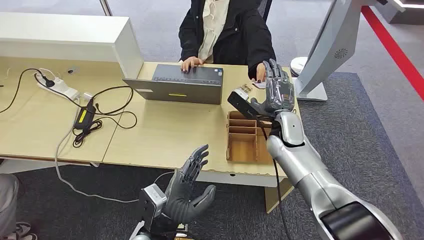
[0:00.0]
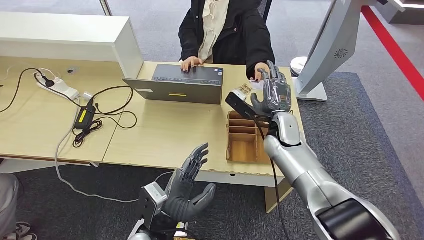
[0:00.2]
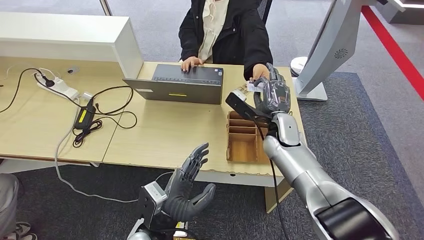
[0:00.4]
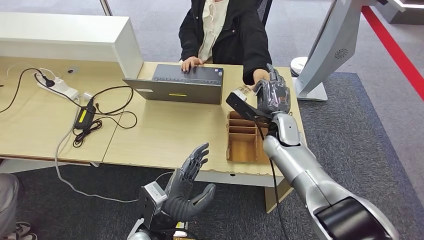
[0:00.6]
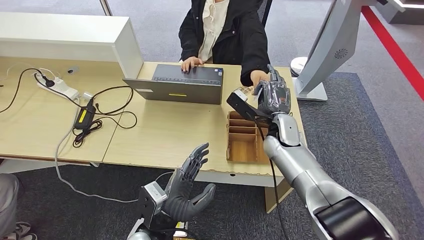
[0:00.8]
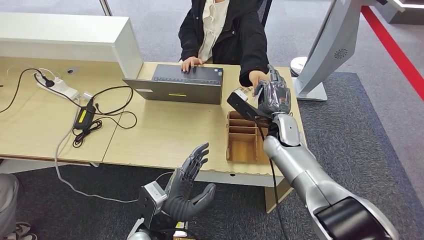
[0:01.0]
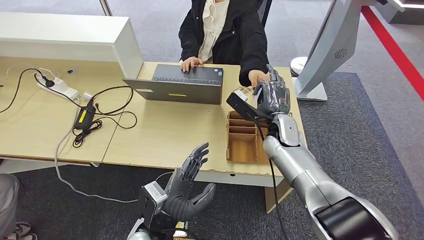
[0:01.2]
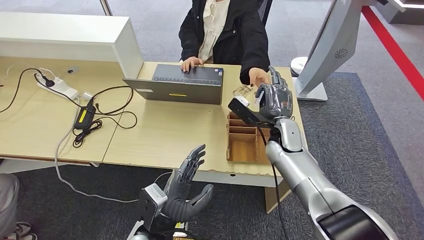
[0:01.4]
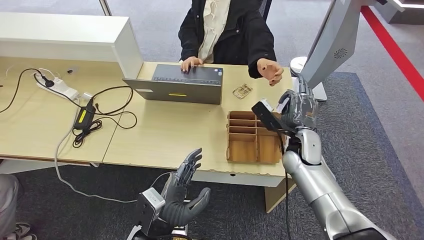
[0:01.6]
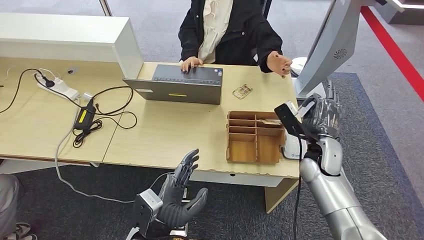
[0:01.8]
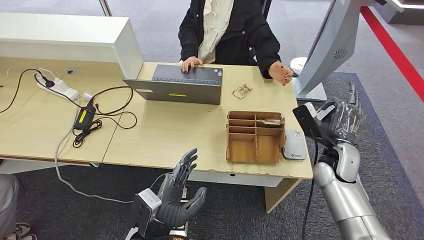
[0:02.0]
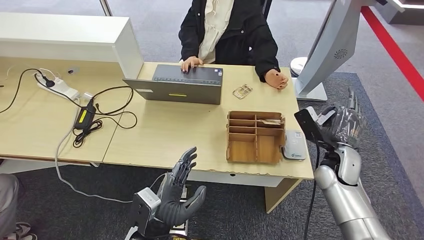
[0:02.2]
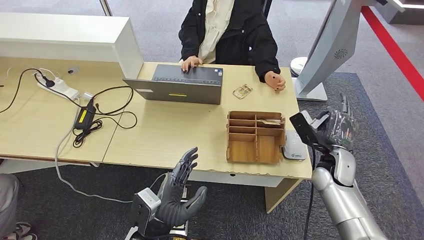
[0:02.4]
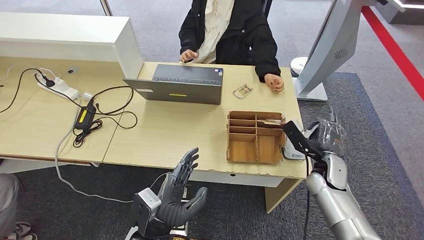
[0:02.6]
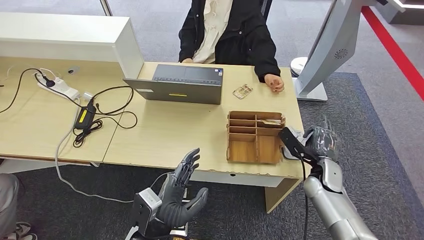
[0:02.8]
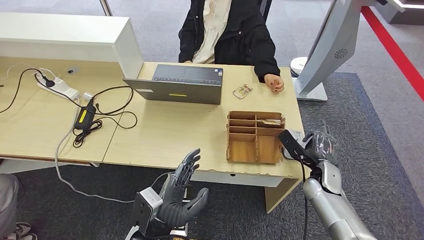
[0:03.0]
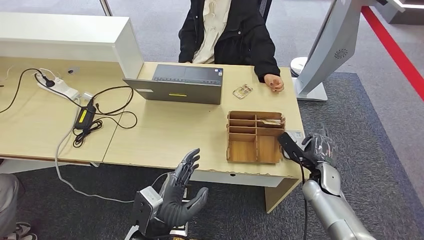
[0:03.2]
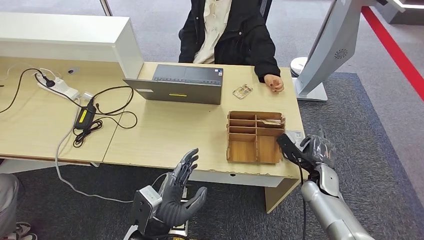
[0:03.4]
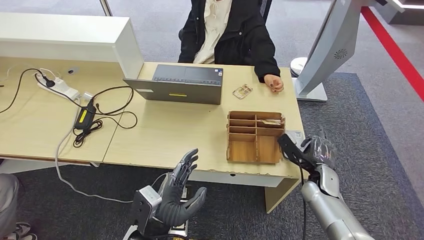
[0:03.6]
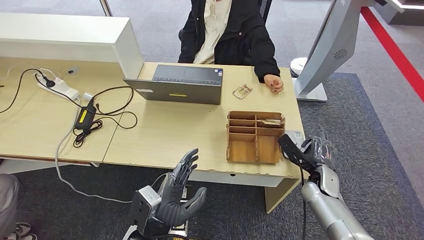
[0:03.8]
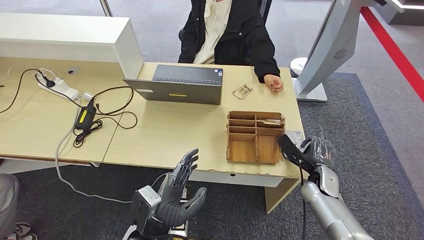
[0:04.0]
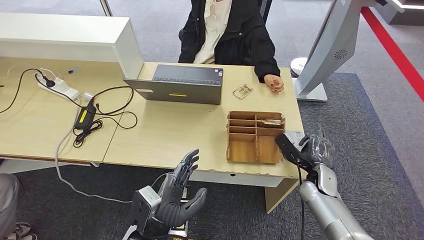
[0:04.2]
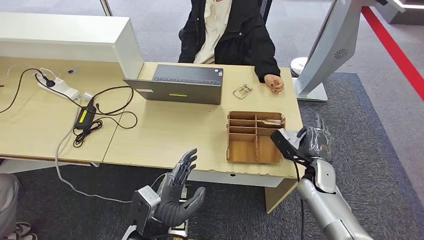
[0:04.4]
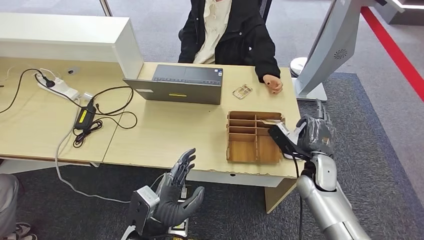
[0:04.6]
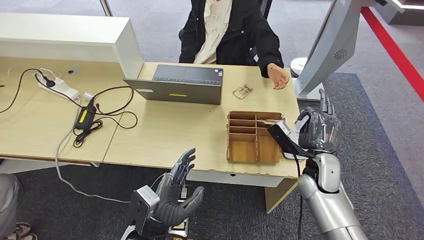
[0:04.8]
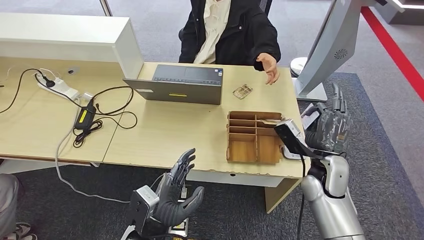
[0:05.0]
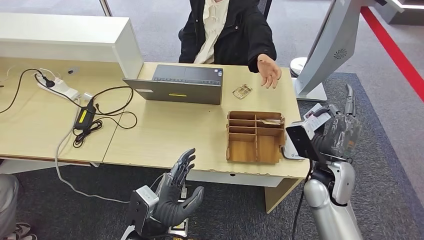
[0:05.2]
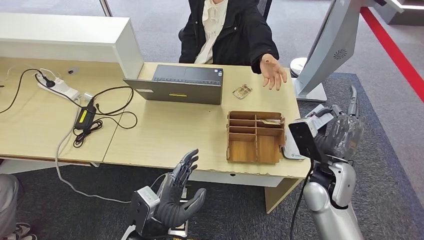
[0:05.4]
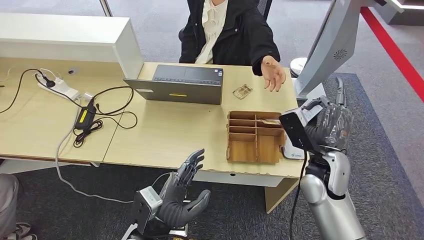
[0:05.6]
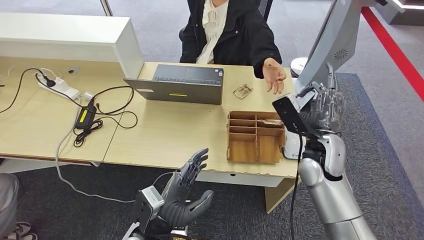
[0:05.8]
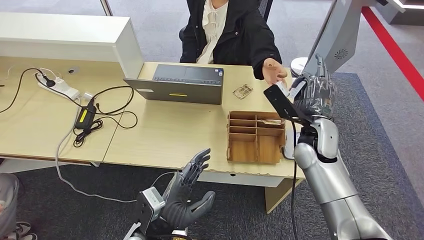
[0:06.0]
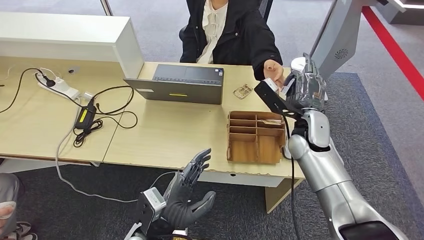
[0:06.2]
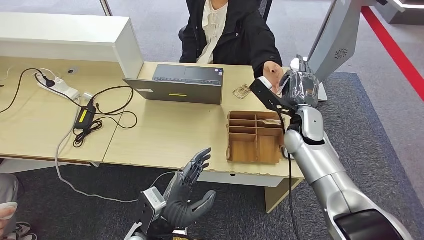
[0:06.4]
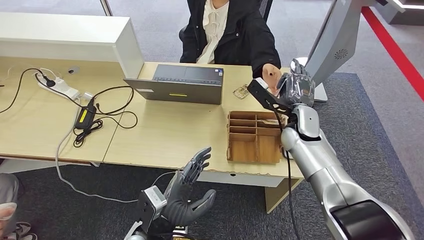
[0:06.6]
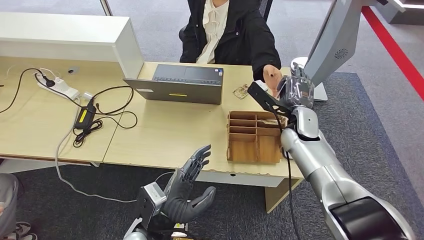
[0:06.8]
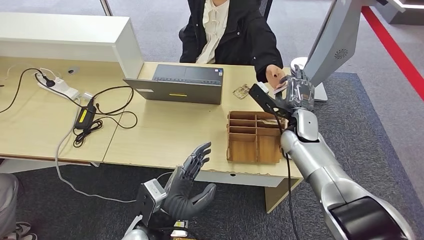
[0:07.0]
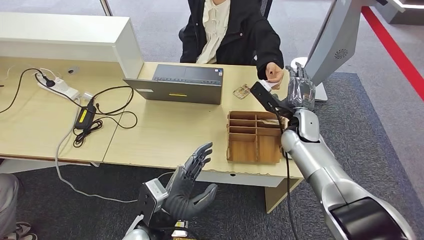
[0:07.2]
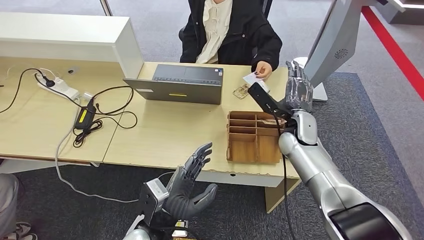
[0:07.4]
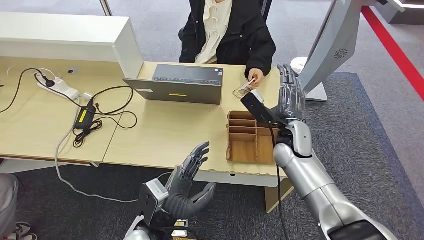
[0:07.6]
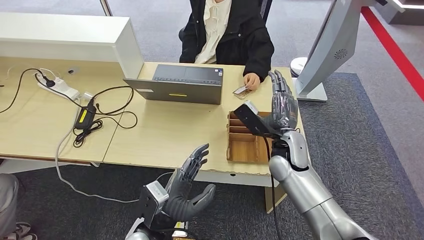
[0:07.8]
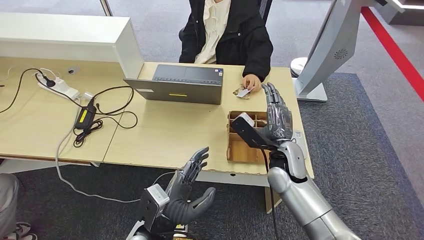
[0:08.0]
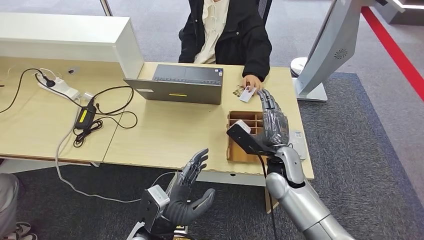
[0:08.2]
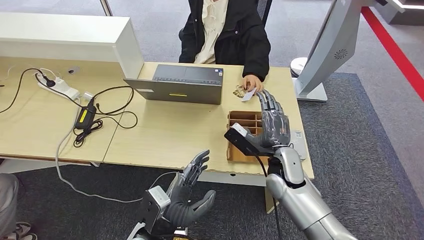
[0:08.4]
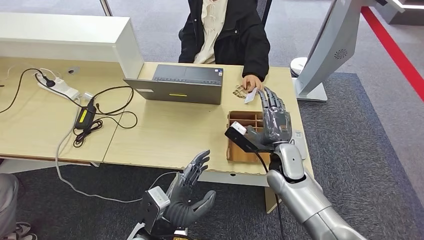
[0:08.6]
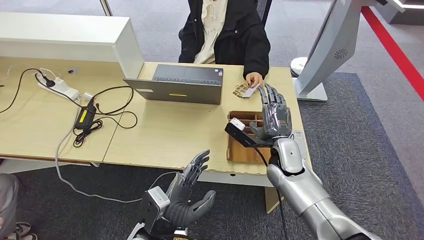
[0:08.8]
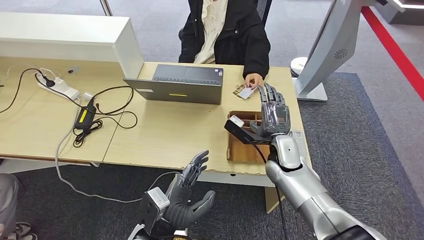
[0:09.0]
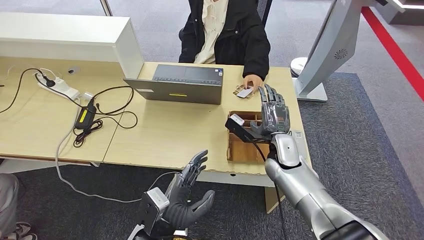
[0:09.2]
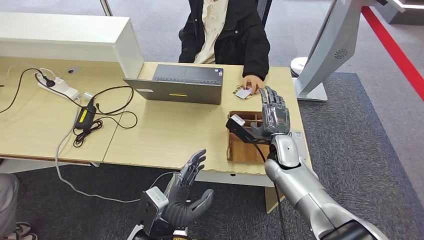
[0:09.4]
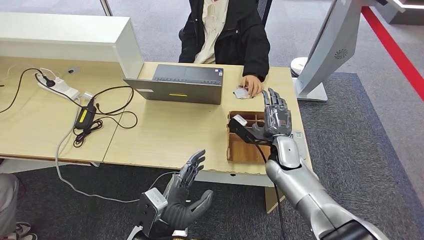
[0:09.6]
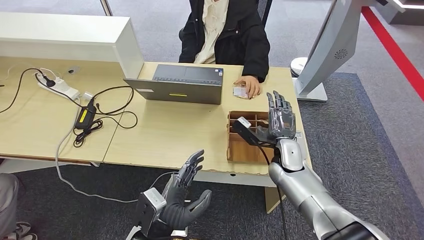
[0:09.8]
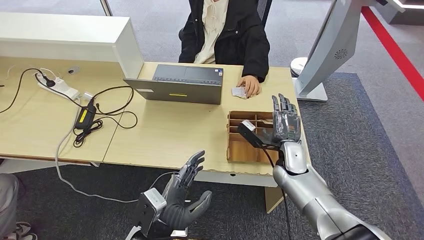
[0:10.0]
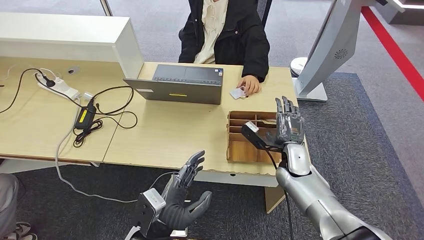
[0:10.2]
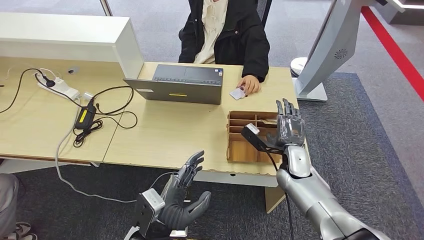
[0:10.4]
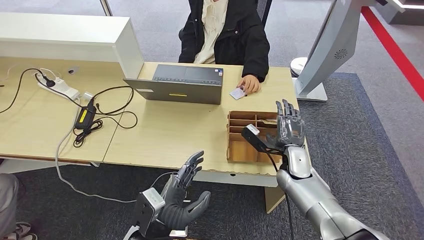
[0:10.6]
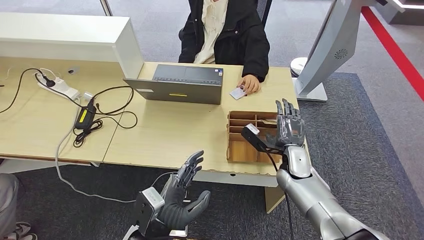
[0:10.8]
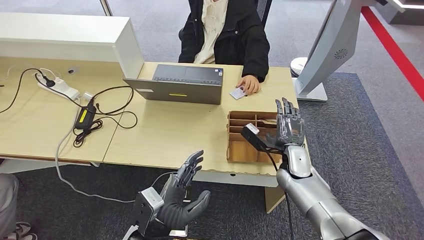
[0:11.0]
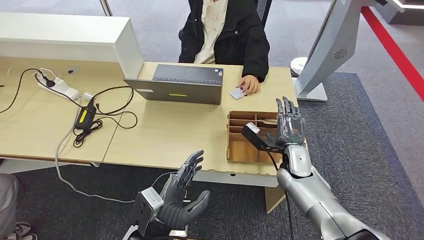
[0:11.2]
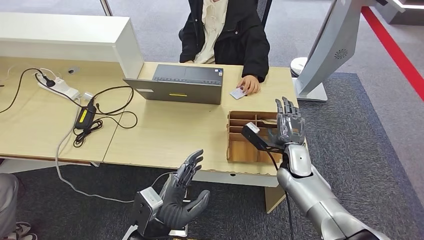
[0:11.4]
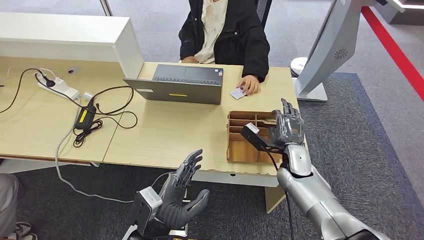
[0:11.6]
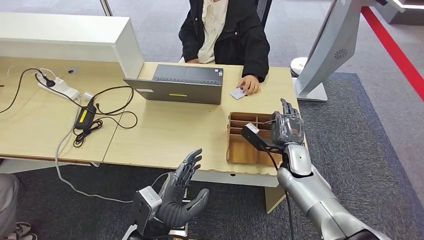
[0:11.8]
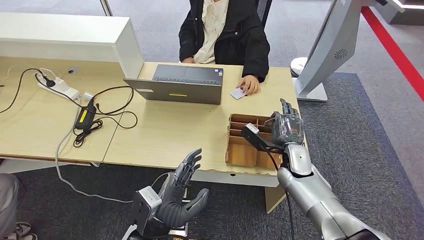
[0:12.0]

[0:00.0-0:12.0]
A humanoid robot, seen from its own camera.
Step, 0:00.0 to 0:02.2: Take the ID card from the person's hand.
Step, 0:02.4 to 0:05.0: Place the ID card on the card reader.
Step, 0:05.2 to 0:08.2: Hand the ID card to the person.
0:01.6 to 0:03.0: The right hand moves downward, to the right and backward, approximately 15 cm.
0:03.0 to 0:04.4: The hands make only small movements.
0:04.4 to 0:06.0: The right hand shifts about 15 cm upward.
0:06.0 to 0:07.6: The right hand ends up roughly 5 cm from where it was.
0:09.0 to 0:10.4: The right hand changes place by some 5 cm.
0:10.4 to 0:12.0: Both hands stay about where they are.

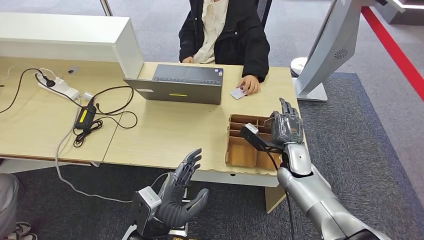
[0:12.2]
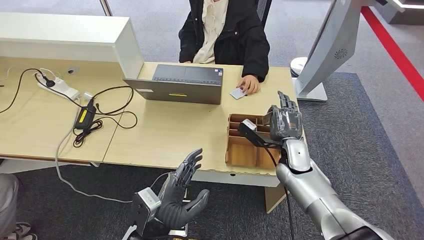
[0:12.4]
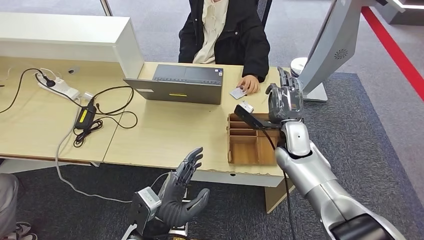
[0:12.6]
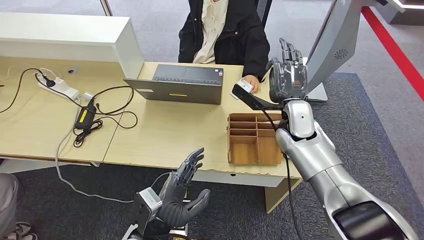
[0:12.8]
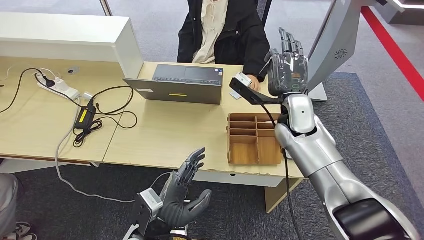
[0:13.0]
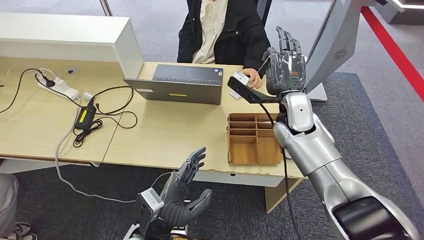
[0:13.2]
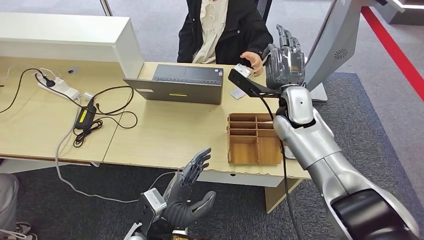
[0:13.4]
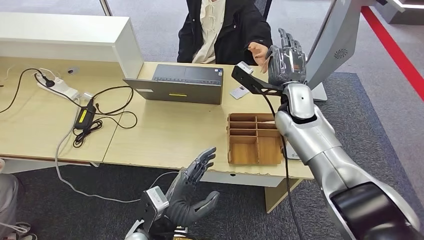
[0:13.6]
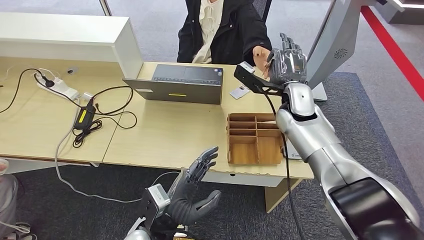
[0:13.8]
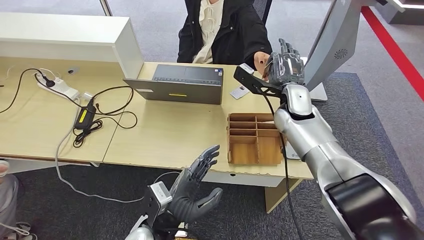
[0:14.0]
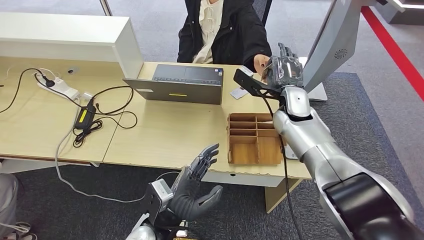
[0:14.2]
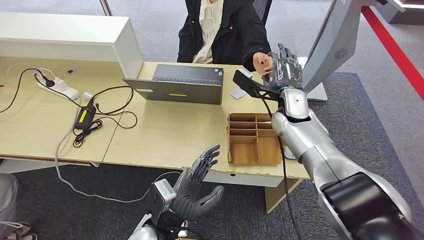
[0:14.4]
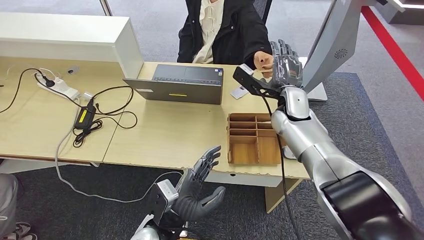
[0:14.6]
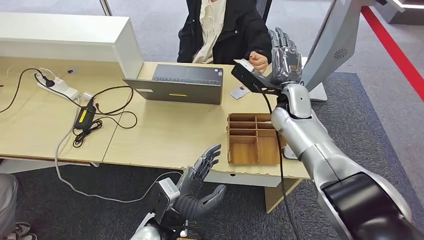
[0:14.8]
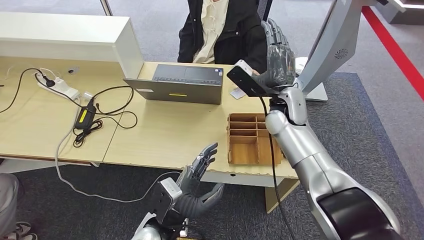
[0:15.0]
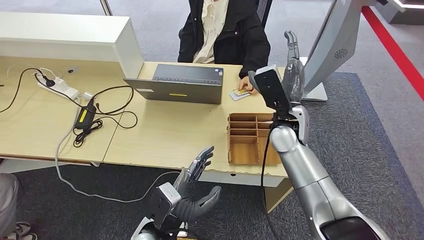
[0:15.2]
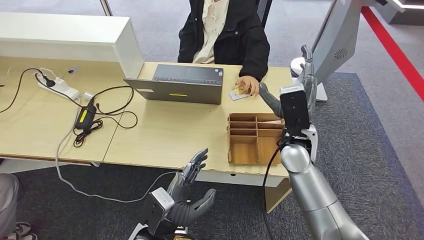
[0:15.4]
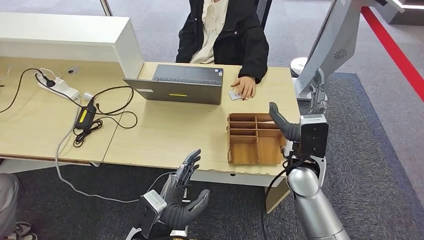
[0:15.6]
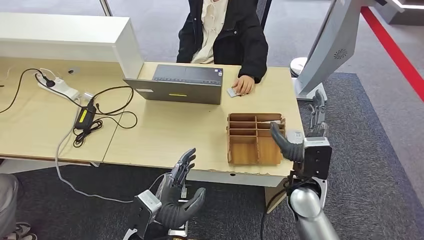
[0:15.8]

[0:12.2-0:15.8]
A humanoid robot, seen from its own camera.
Step, 0:13.4 to 0:15.6: Hand the room key to the person.
0:14.0 to 0:15.8: The right hand goes some 20 cm backward and downward.
